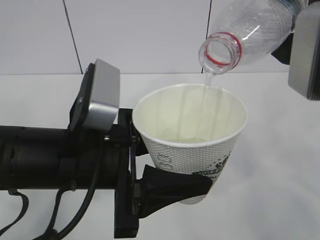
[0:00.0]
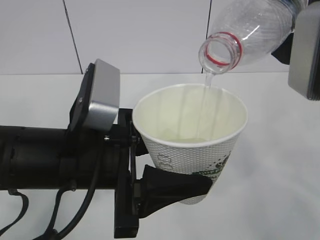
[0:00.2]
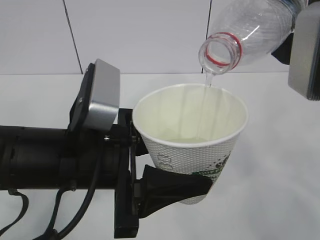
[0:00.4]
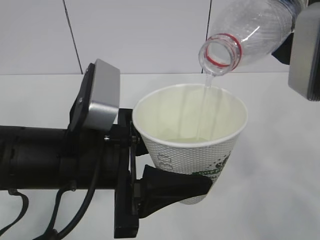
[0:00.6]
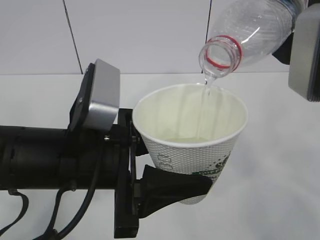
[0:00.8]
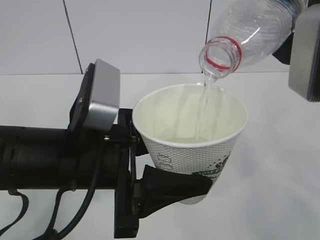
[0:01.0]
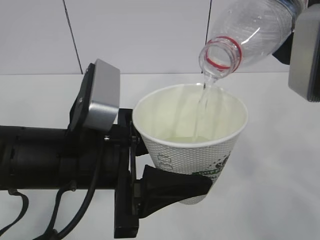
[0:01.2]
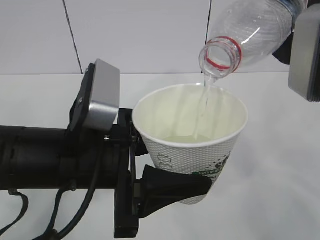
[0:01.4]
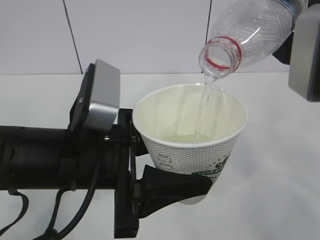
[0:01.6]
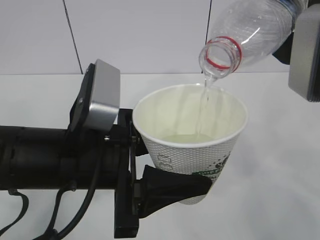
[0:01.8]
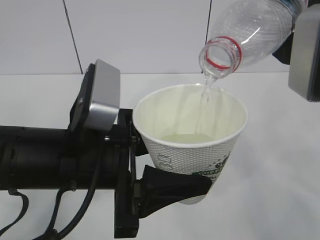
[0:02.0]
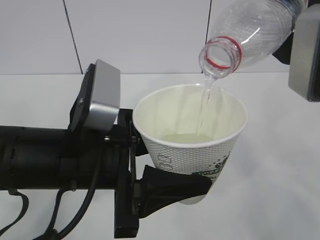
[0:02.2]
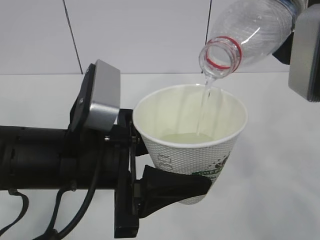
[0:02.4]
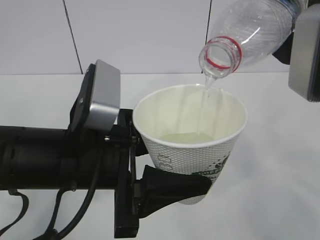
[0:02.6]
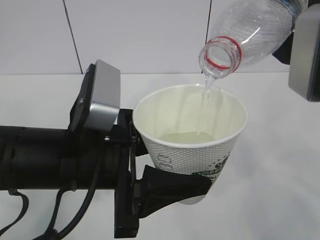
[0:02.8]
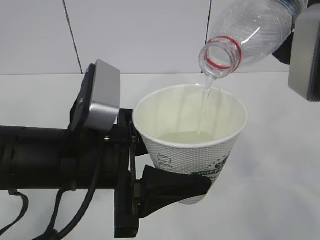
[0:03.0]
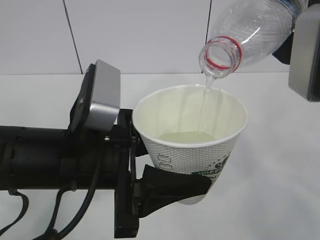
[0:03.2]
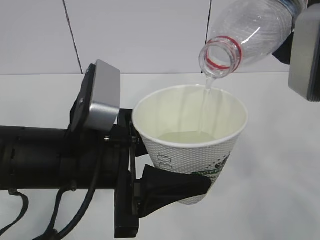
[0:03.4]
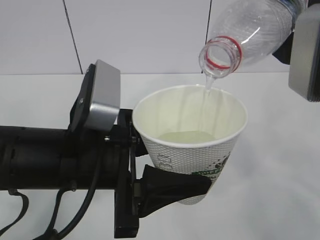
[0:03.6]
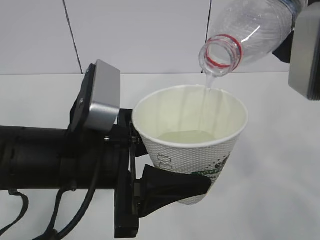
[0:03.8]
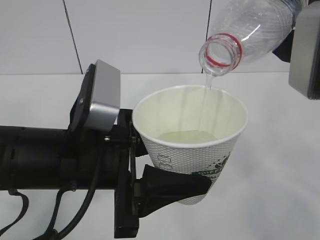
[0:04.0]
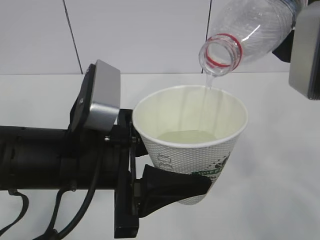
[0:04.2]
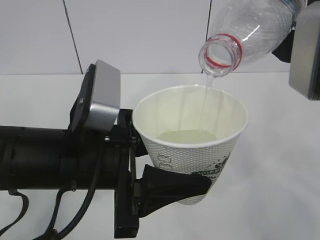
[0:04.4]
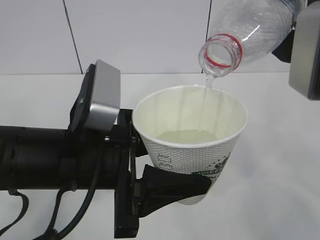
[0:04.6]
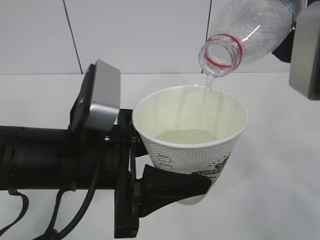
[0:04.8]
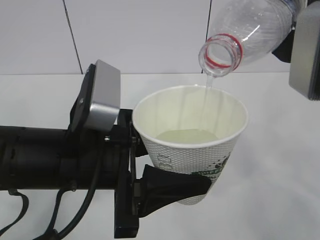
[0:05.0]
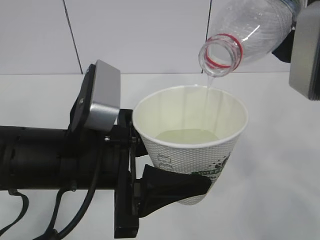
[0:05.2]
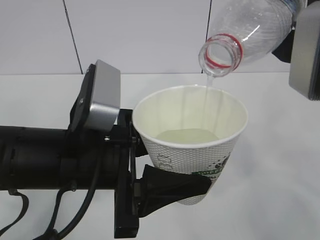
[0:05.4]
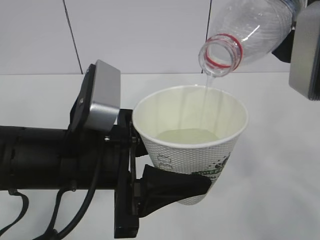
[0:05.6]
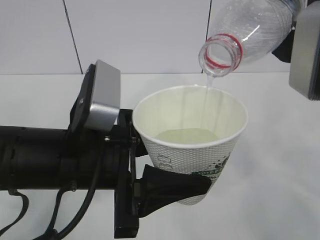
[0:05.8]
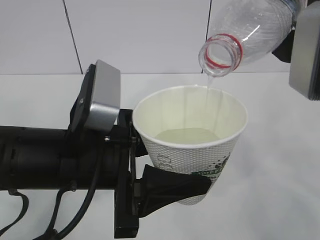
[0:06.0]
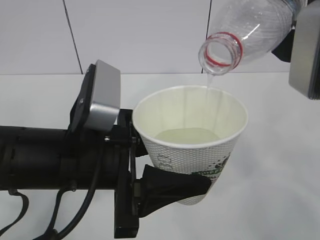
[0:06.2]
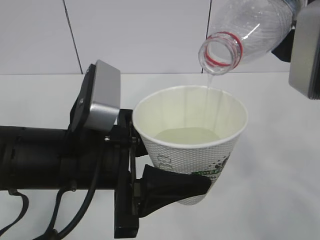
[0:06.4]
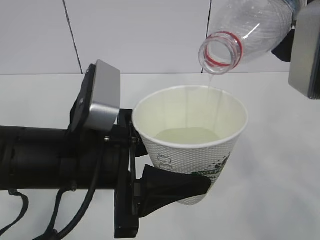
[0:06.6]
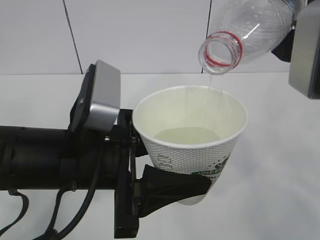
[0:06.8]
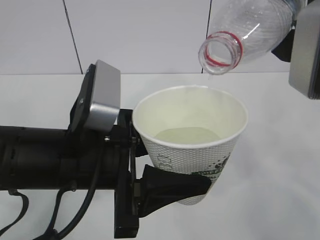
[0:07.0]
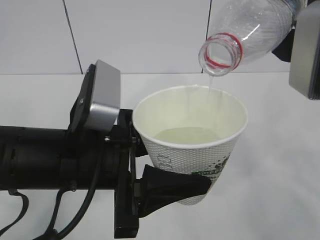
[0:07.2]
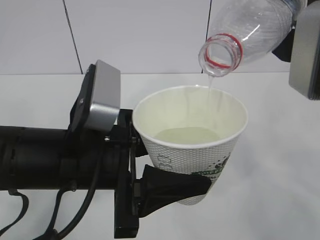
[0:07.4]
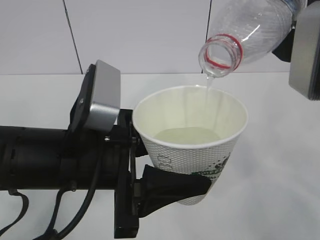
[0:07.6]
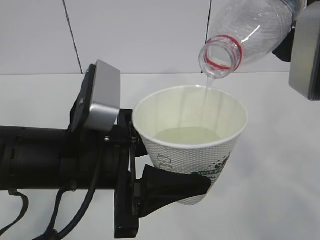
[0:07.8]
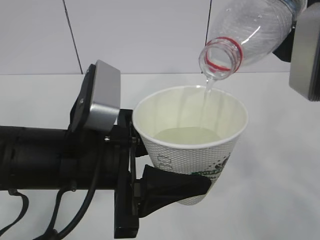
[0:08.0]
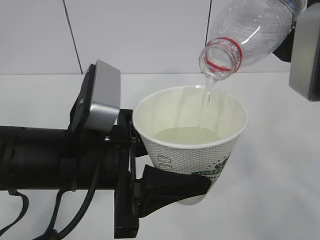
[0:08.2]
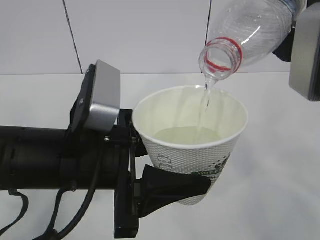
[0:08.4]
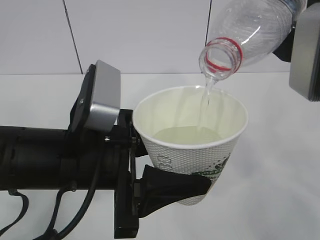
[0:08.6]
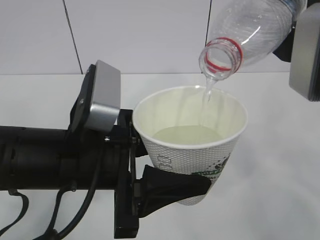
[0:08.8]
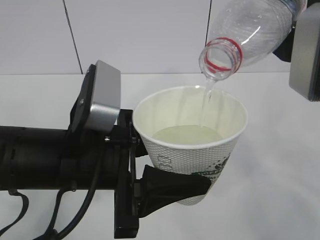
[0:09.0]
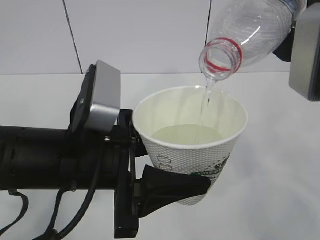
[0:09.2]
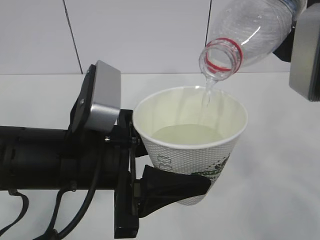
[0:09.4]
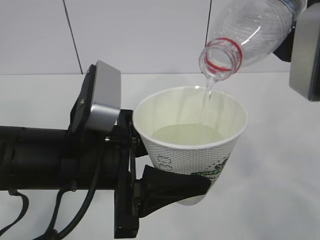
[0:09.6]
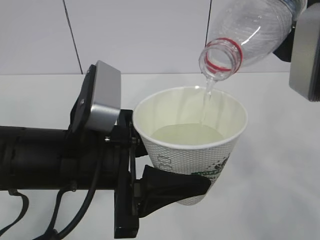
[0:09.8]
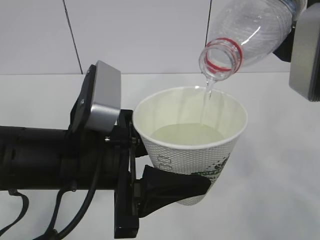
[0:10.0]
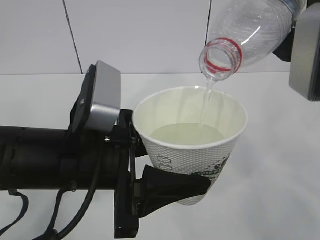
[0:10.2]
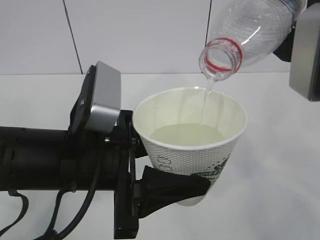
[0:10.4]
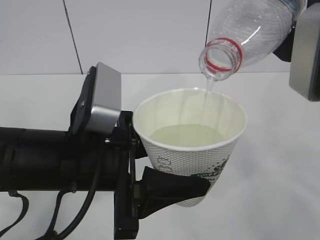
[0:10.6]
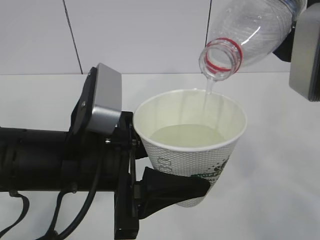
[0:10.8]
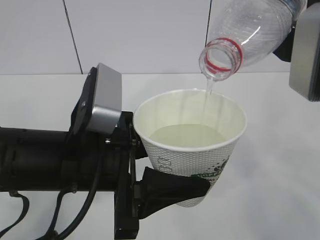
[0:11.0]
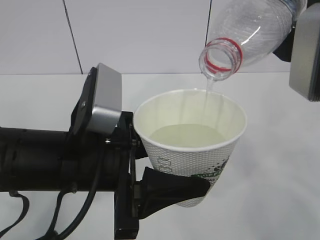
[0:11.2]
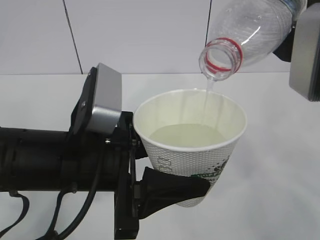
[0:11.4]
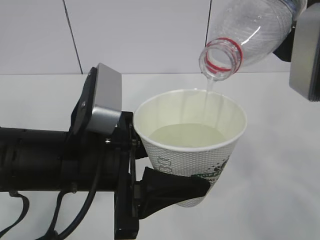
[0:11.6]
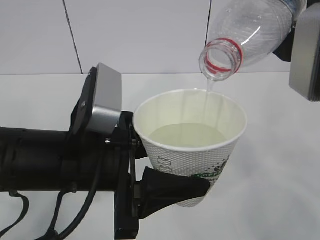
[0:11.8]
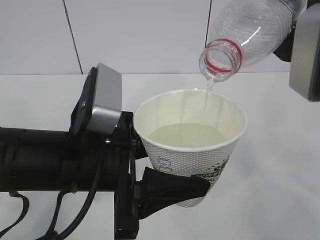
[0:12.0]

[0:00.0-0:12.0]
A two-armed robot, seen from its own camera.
0:00.0 to 0:12.0: Neither gripper changes place.

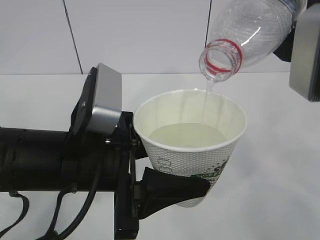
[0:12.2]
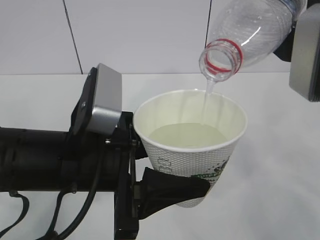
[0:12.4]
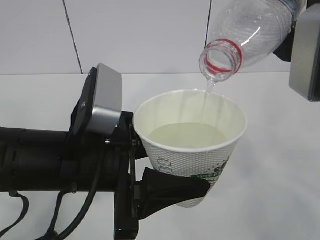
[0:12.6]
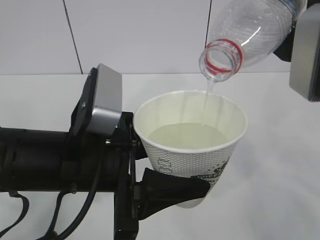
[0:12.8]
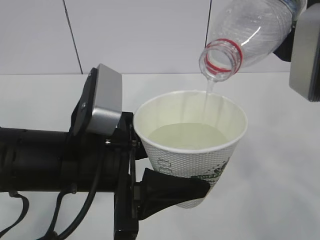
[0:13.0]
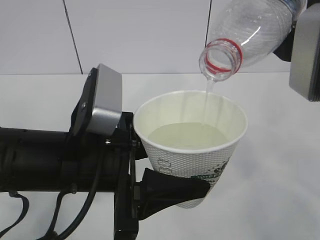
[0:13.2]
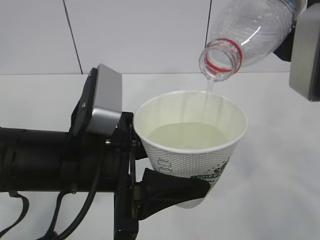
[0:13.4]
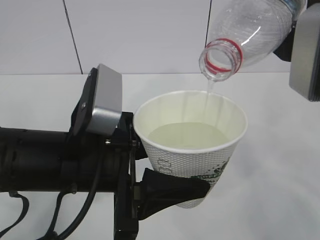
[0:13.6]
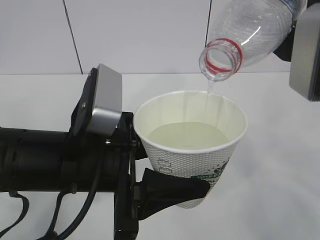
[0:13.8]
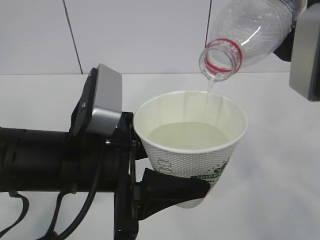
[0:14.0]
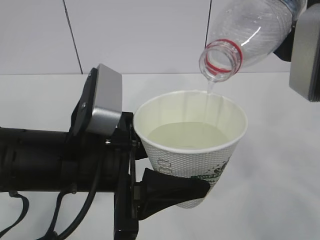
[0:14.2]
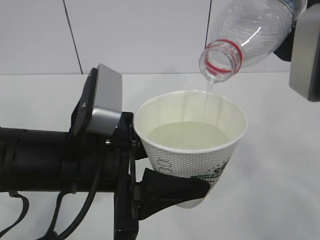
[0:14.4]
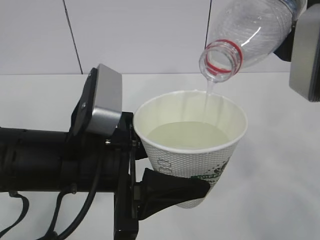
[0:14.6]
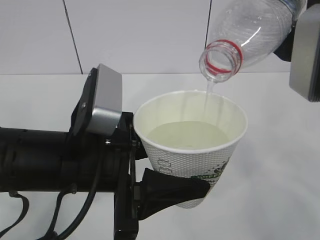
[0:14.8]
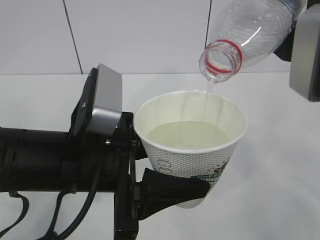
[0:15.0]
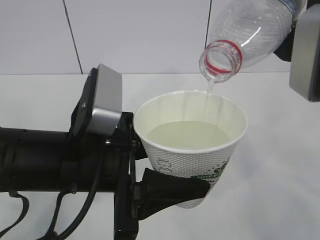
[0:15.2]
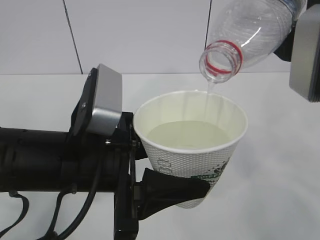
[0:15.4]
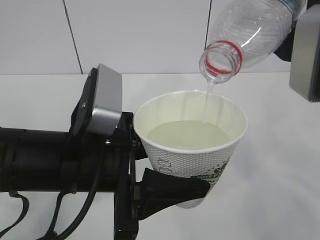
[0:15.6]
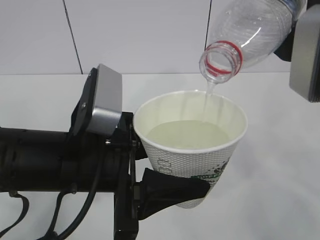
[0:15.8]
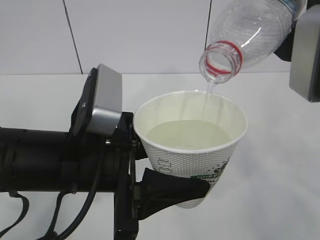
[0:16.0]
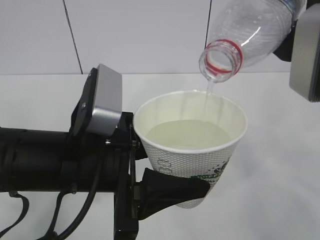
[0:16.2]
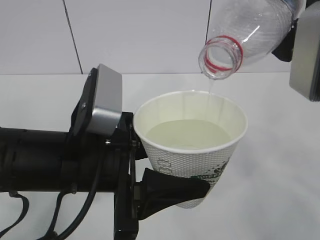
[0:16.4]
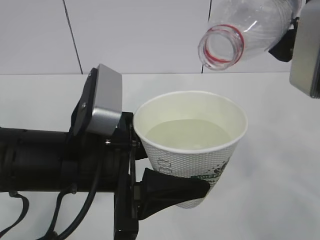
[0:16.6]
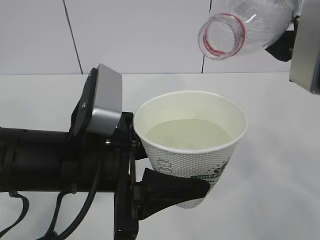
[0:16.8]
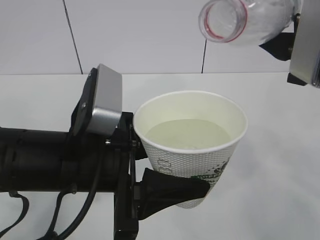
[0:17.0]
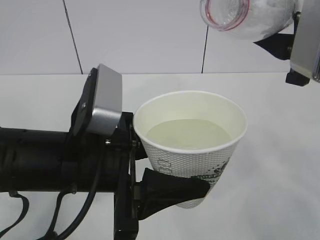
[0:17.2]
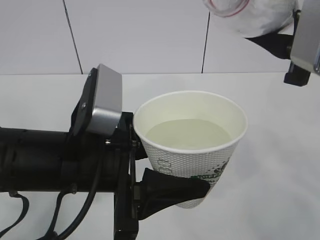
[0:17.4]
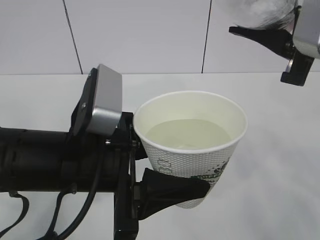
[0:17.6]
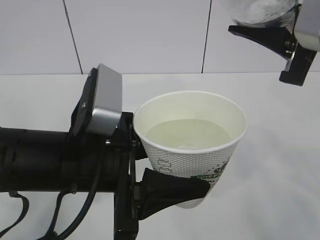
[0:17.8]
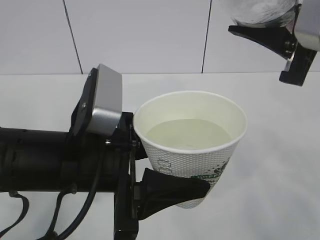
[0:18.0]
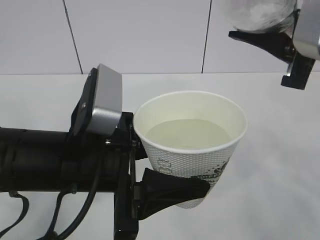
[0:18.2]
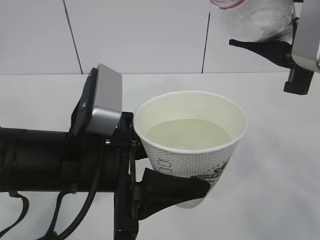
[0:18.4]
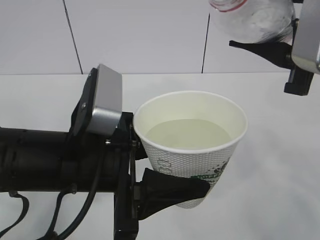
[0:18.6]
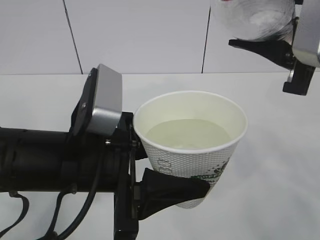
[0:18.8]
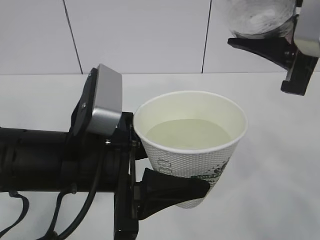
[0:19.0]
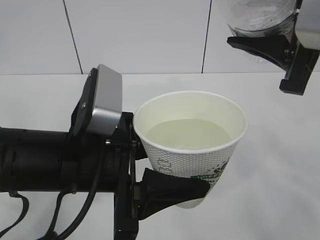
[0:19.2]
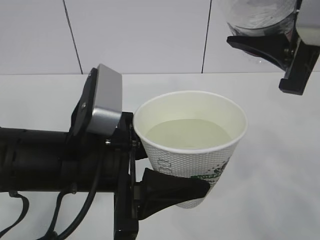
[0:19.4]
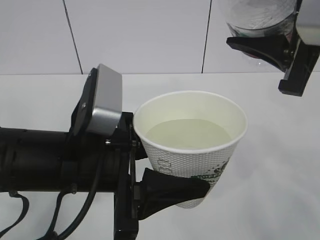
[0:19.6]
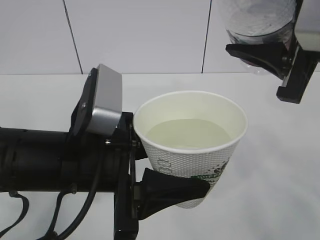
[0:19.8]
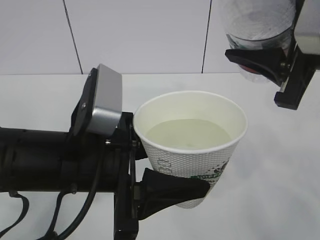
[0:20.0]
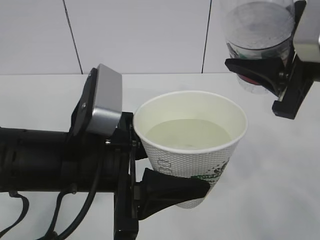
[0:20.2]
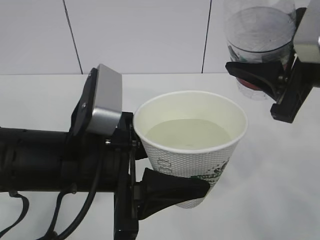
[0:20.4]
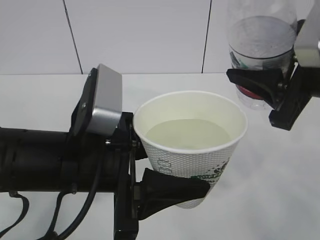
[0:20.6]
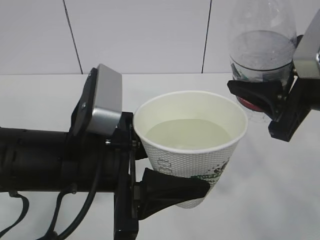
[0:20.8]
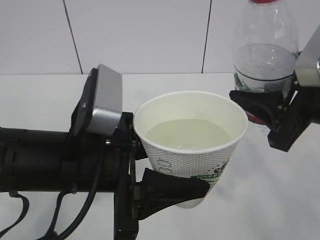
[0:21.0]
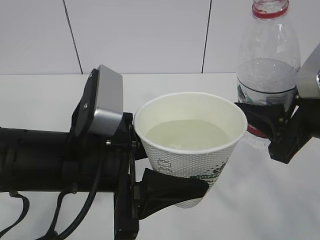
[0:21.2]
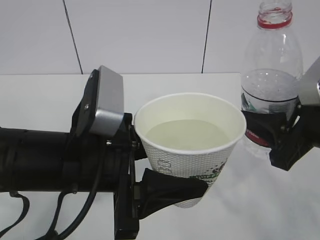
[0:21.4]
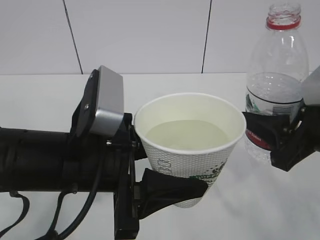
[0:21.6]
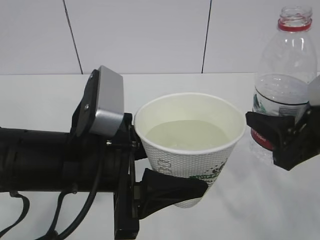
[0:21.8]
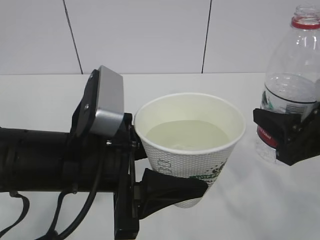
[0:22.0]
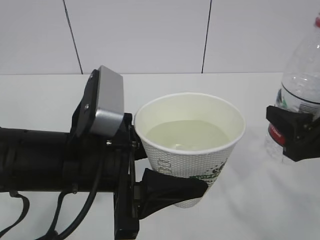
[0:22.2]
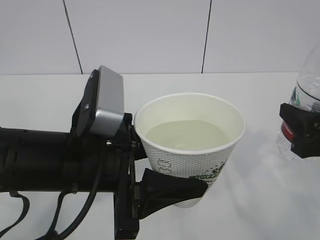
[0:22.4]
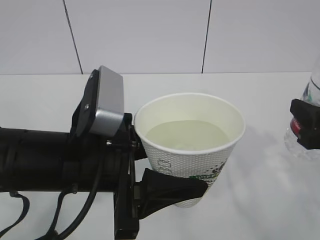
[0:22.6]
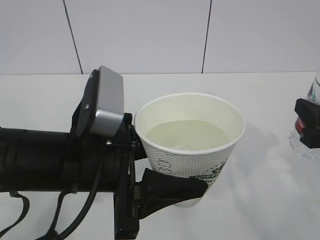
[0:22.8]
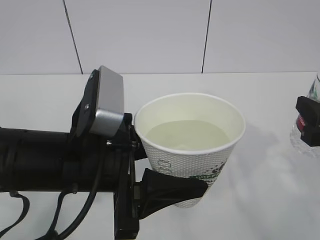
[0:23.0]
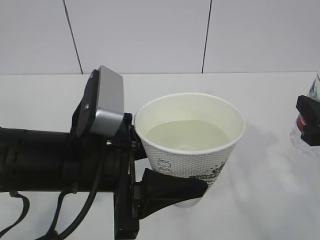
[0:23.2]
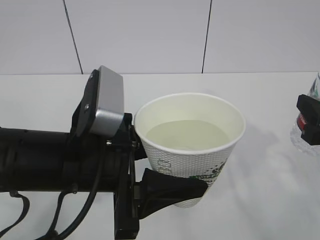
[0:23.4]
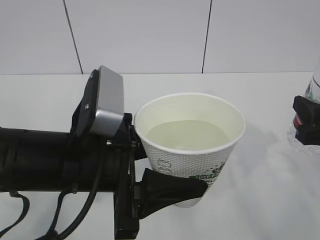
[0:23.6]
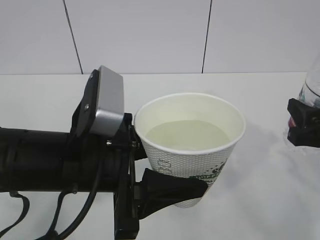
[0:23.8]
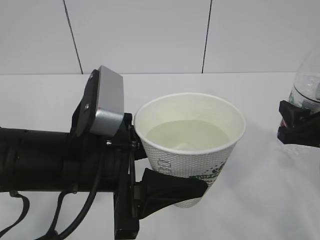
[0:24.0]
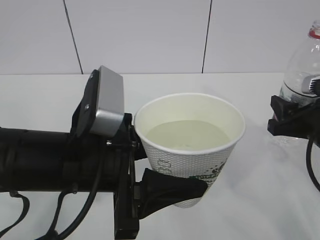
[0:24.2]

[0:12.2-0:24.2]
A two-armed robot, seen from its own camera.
0:12.2 to 0:15.2: Both grippers stay put.
0:15.2 to 0:16.6: The grippers stay close to where they were, moving slightly.
0:18.2 to 0:19.8: There are only small adjustments of the grippers.
0:19.8 to 0:21.2: The right gripper travels downward by about 10 cm.
0:21.2 to 0:22.6: The right gripper ends up approximately 5 cm from where it was.
0:22.6 to 0:24.2: The right gripper is displaced forward by approximately 5 cm.
